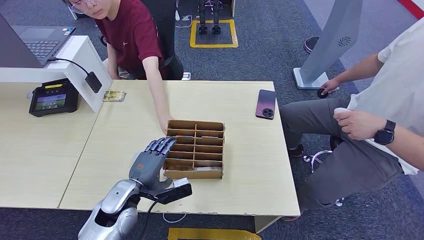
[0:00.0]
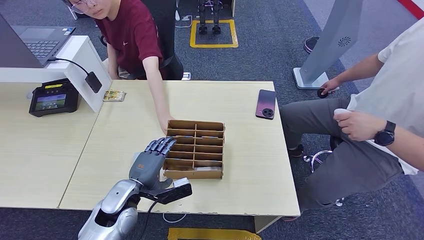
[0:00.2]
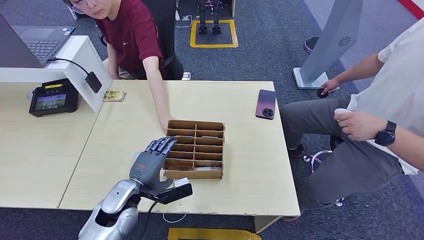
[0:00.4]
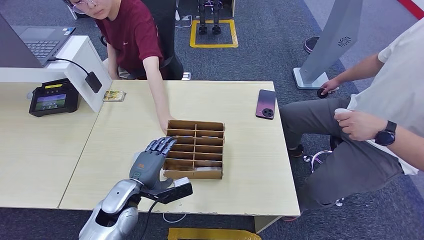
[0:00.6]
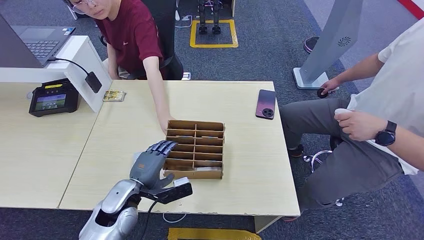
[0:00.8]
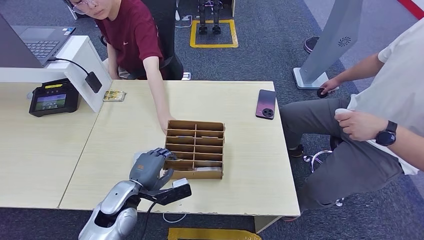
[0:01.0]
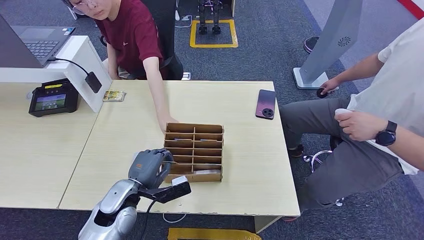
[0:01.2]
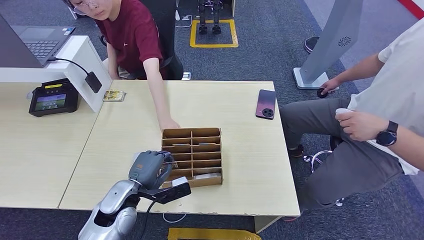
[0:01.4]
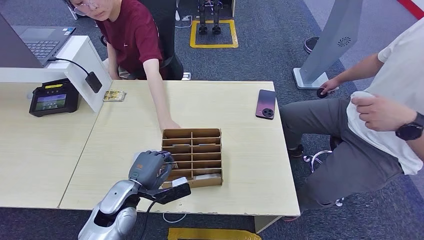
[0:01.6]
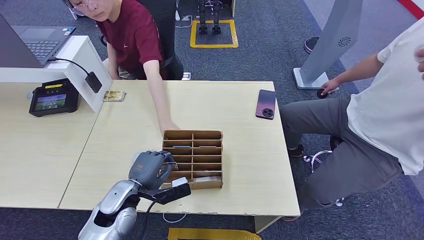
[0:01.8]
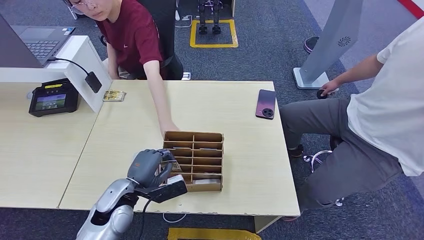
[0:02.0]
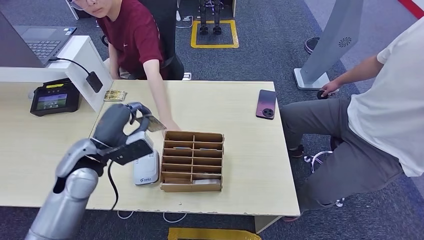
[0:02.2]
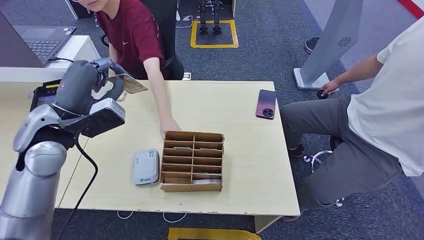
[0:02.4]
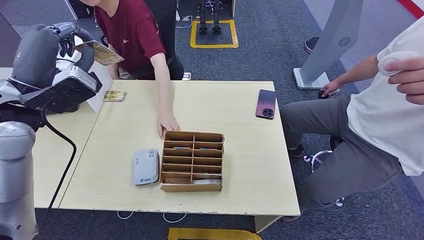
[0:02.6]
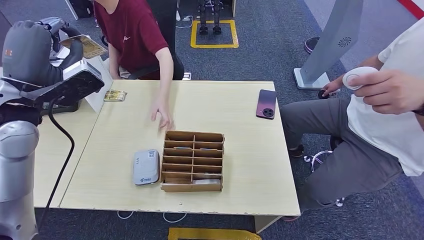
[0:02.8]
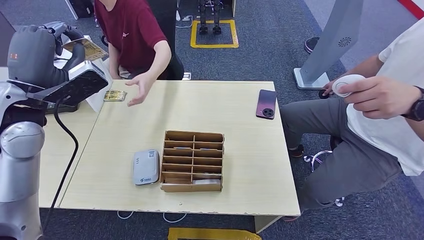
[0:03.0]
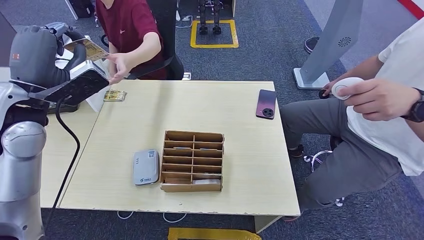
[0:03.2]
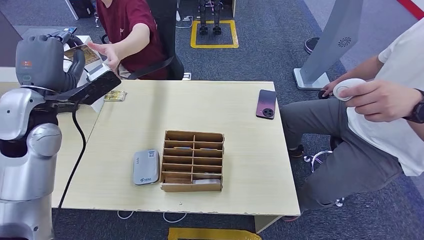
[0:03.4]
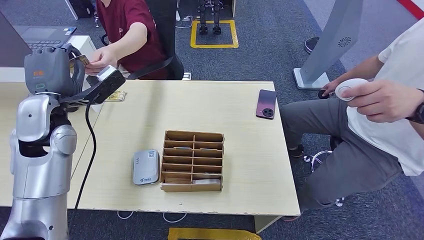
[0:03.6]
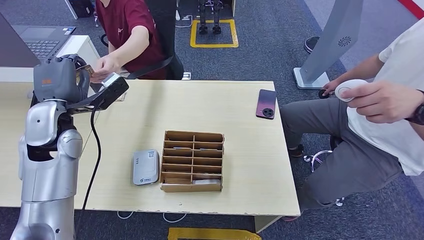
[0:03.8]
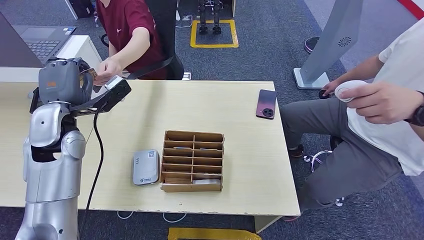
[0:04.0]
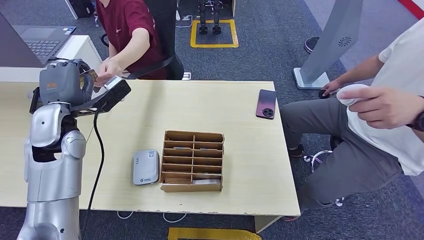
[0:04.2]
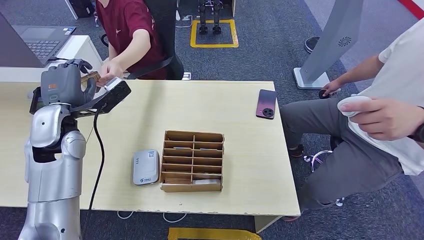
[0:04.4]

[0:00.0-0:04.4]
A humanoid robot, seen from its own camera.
Step, 0:00.0 to 0:02.0: Pick up the room key from the key card box.
Step, 0:02.2 to 0:04.4: Hand the room key to the person.
0:00.0 to 0:01.4: Both hands stay about where they are.

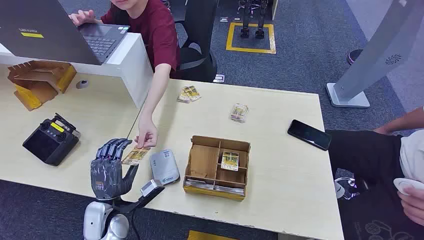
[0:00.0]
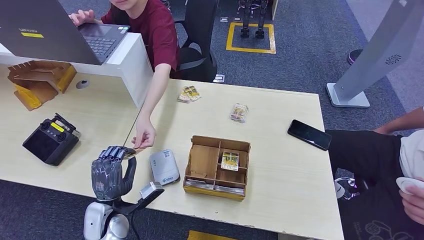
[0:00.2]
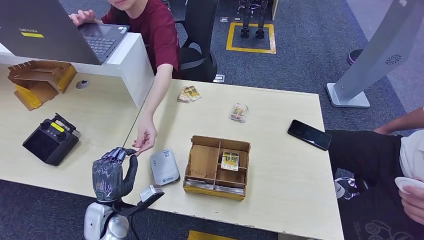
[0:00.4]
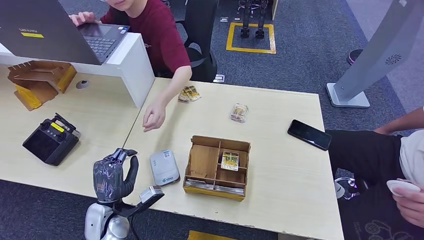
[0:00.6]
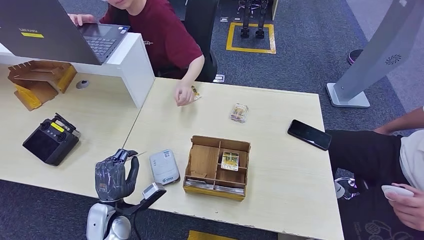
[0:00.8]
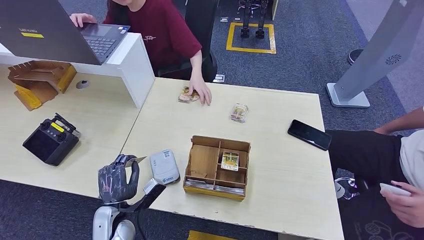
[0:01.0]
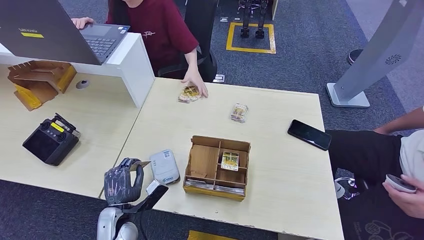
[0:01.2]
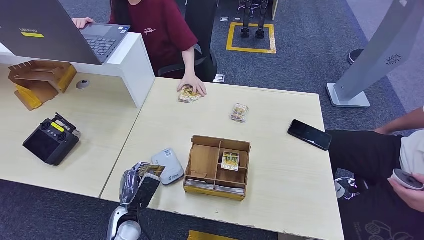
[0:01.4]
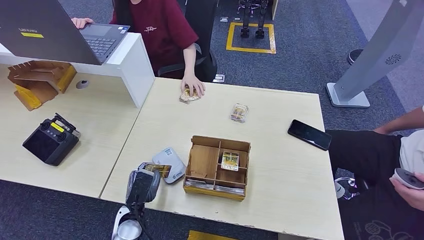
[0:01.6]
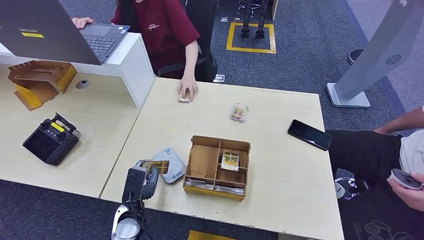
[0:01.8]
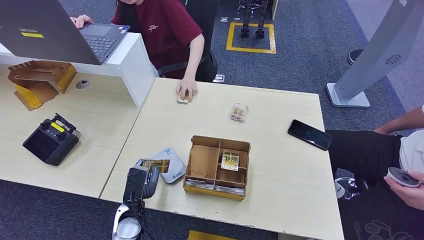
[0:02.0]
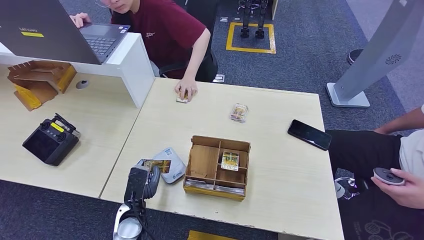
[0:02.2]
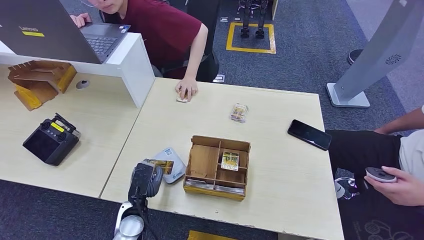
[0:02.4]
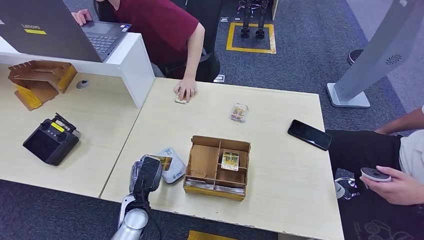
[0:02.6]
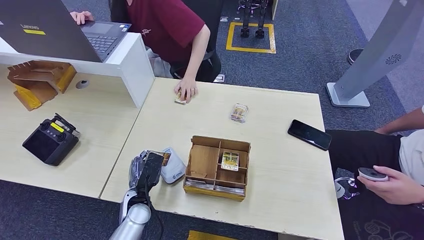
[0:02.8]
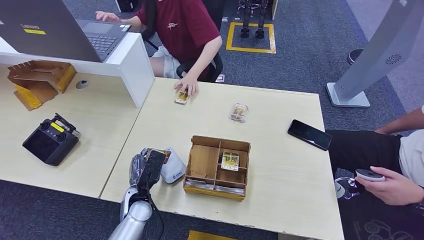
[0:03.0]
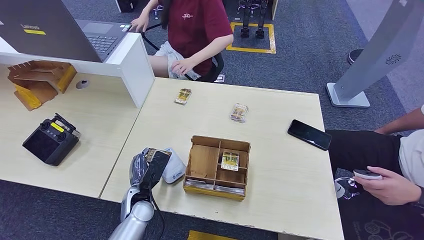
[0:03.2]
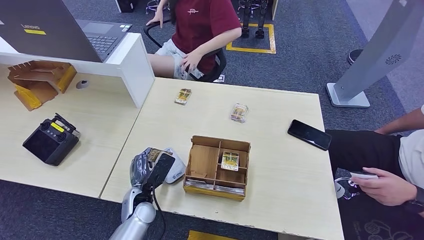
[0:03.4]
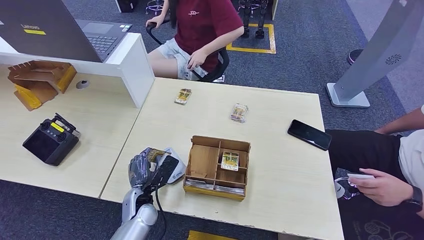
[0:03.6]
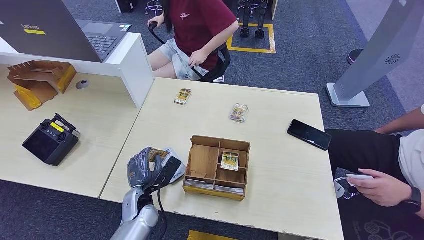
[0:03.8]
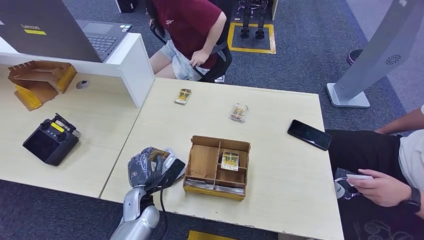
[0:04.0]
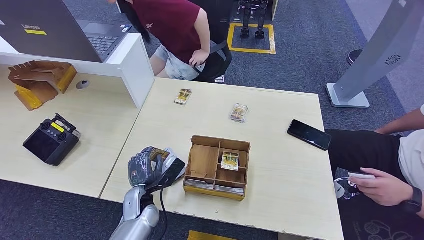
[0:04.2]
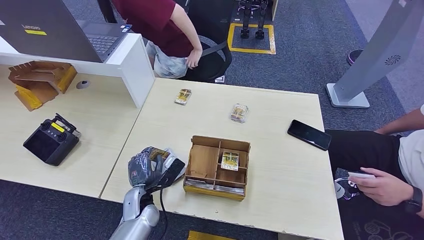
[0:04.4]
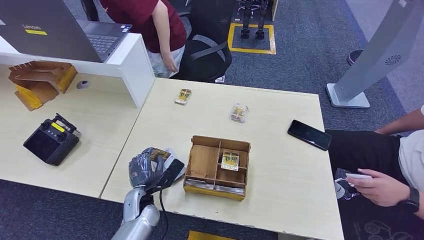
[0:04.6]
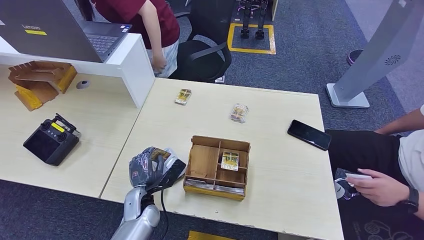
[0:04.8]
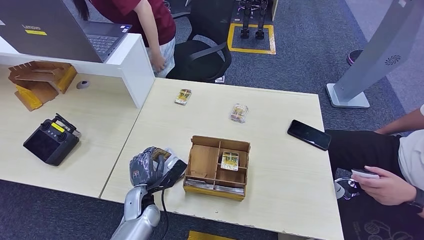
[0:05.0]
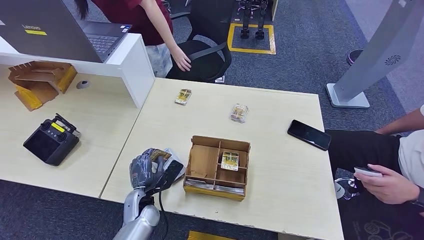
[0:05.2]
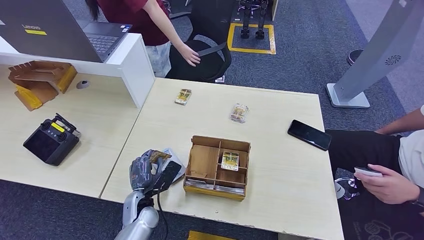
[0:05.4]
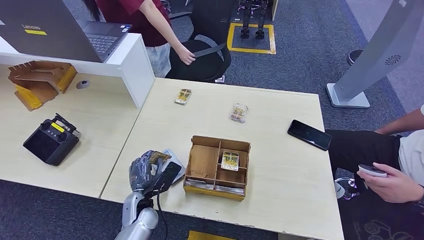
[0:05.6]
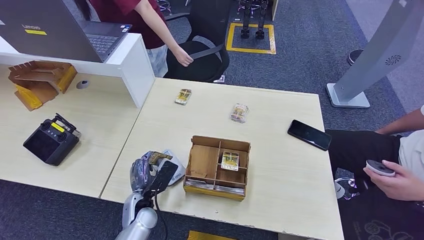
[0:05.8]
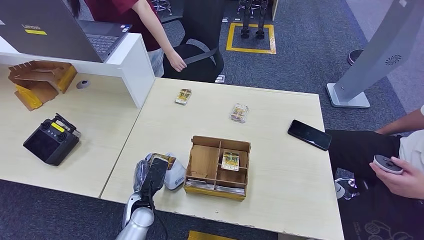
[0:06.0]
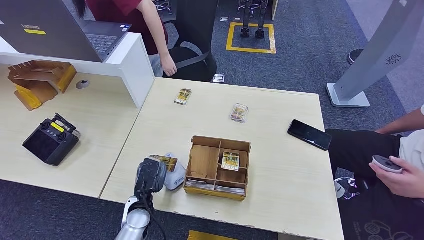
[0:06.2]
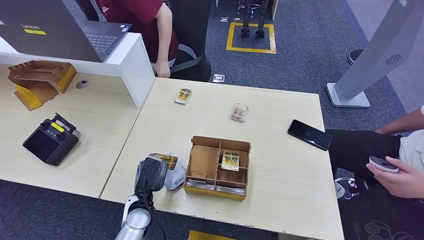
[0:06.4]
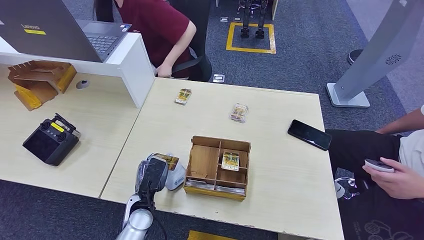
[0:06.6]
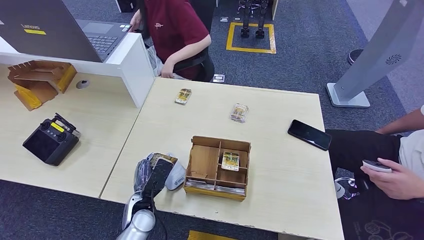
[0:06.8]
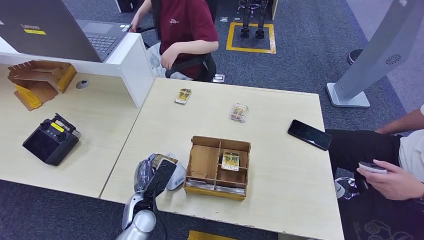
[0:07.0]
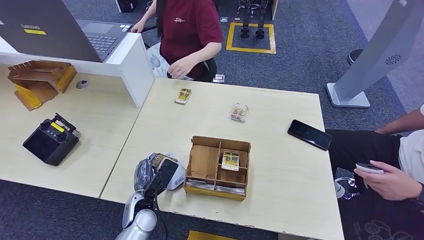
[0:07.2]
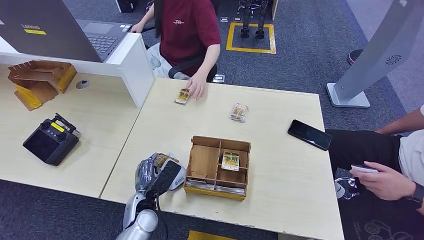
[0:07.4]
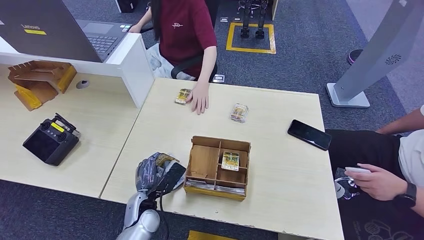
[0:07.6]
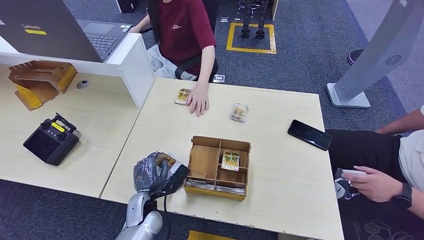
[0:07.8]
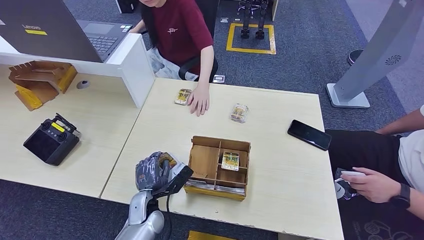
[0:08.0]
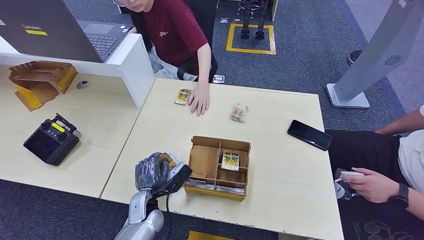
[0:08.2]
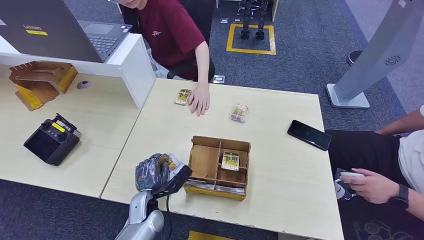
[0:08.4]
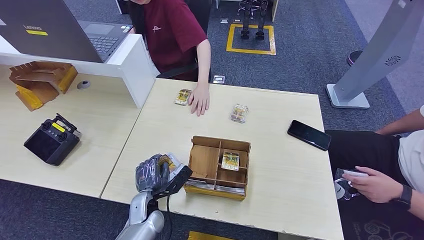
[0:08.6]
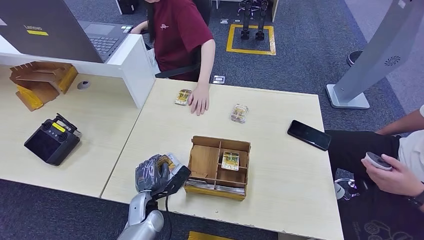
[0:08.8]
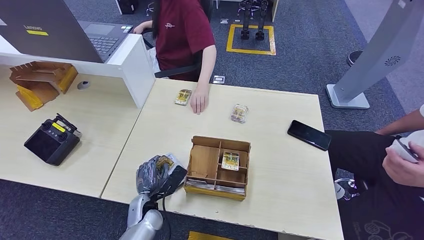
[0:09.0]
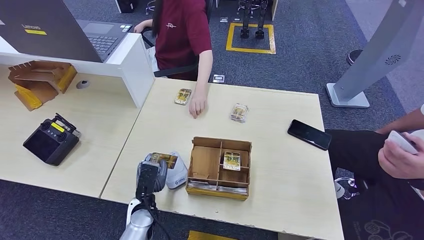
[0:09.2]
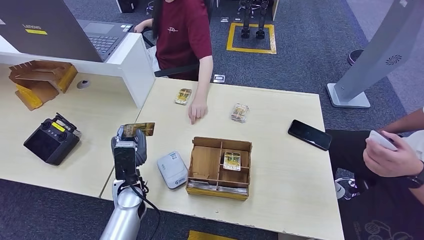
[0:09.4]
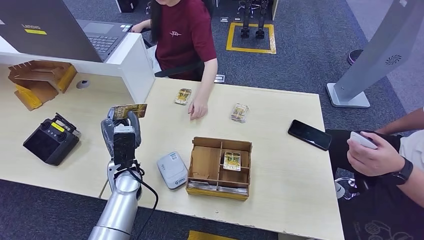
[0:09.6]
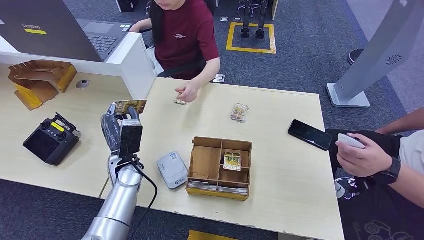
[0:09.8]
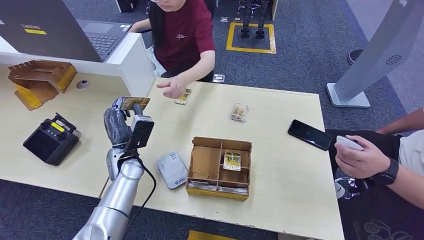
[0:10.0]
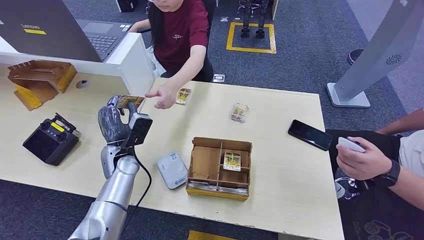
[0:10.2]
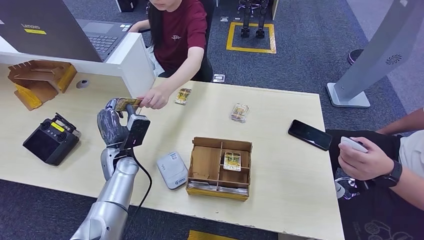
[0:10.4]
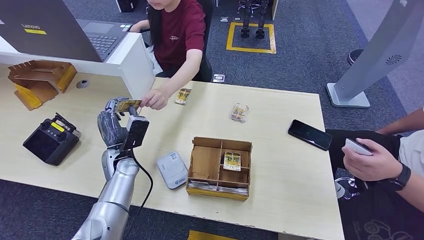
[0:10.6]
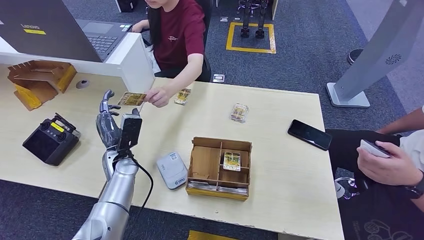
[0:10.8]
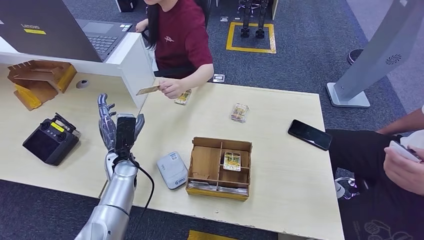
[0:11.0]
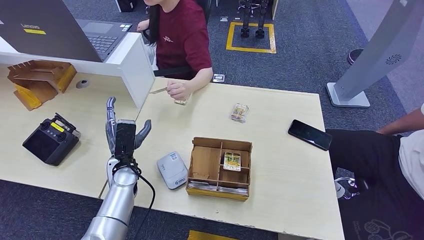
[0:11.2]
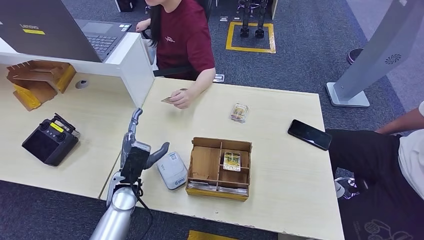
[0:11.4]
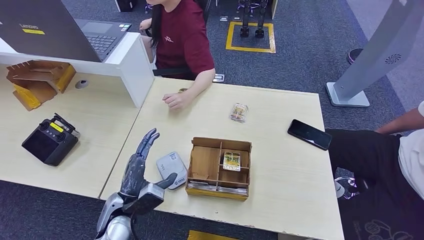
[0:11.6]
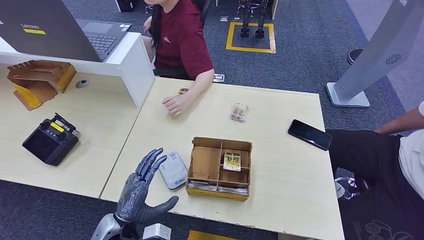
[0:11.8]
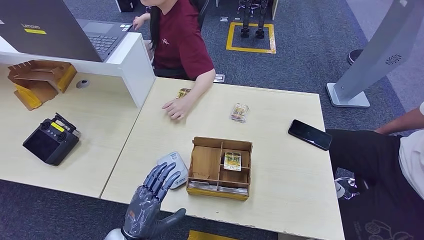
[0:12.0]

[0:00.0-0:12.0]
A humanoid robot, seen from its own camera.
Step, 0:00.0 to 0:00.6: Take the ID card from the person's hand.
Step, 0:01.0 to 0:07.4: Place the ID card on the card reader.
Step, 0:08.4 to 0:10.8: Hand the ID card to the person.
0:01.6 to 0:03.0: The left hand moves approximately 5 cm.
0:06.0 to 0:07.6: The hands make only small movements.
0:07.6 to 0:09.0: The hands move only a little.
0:09.0 to 0:10.4: The left hand goes some 20 cm upward, forward and to the left.
0:10.4 to 0:12.0: The left hand is displaced backward by roughly 20 cm.
